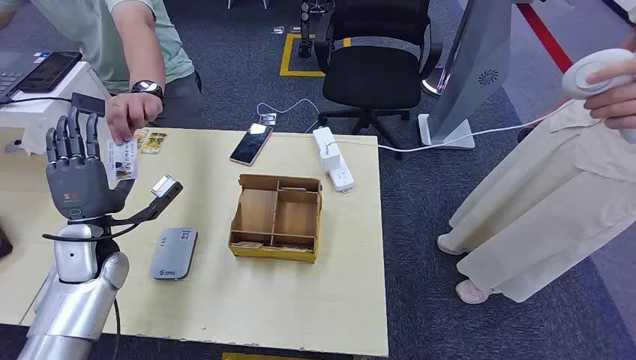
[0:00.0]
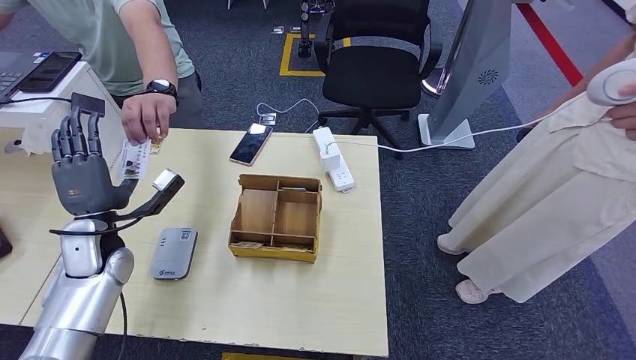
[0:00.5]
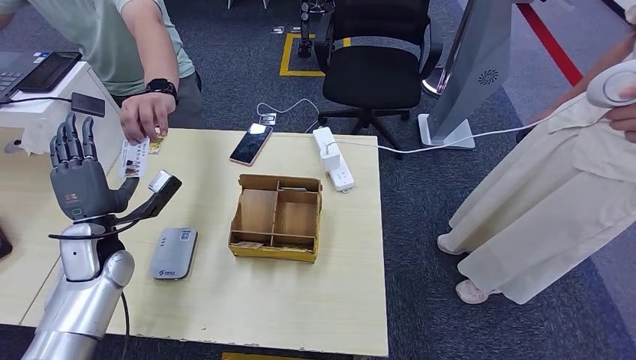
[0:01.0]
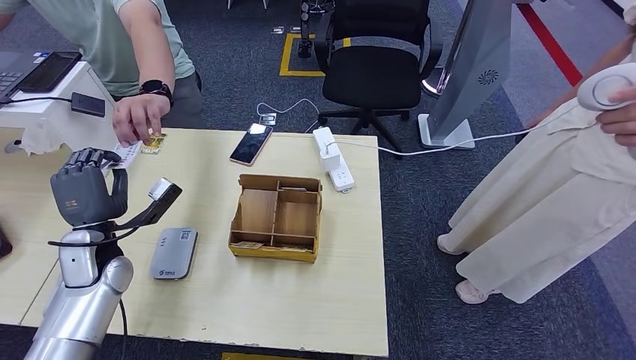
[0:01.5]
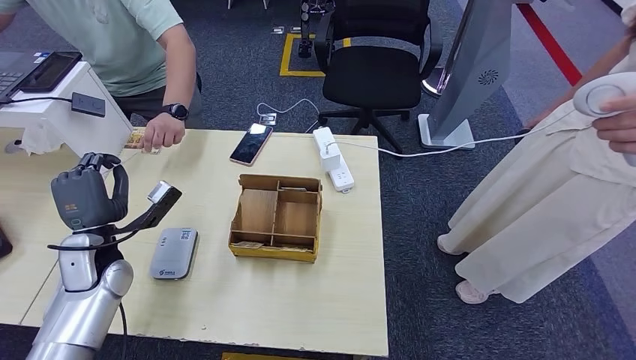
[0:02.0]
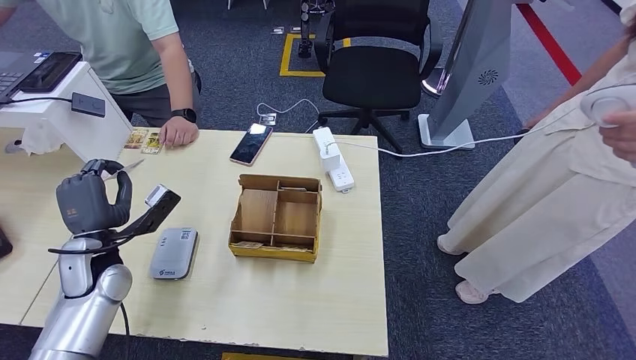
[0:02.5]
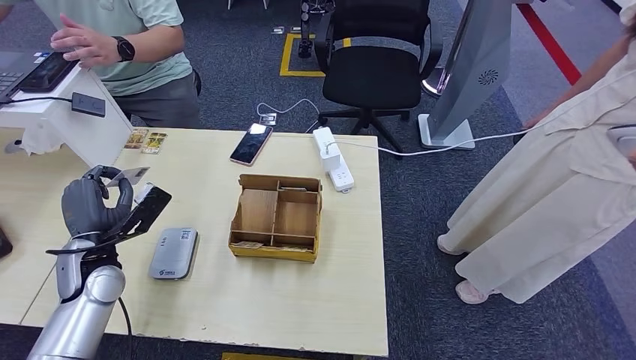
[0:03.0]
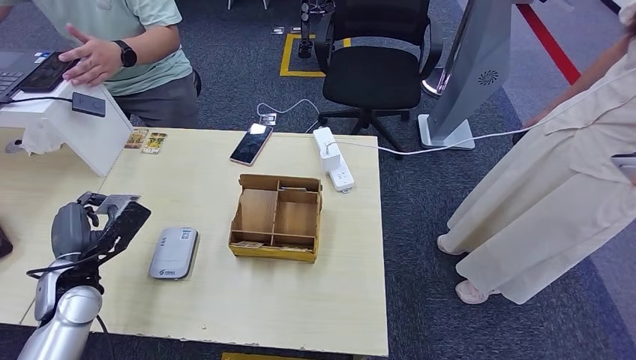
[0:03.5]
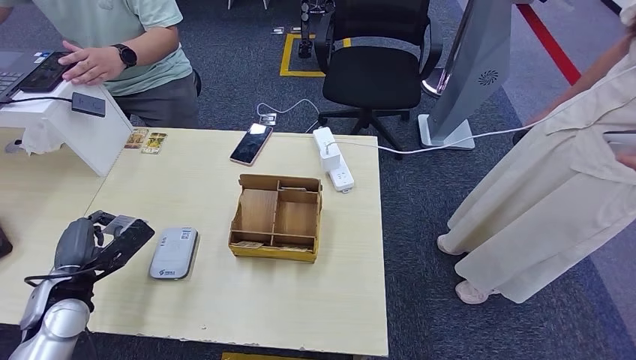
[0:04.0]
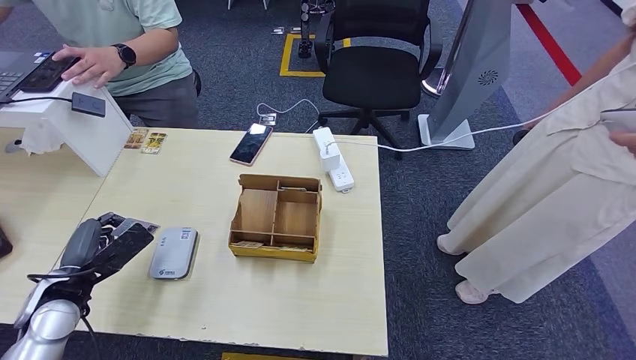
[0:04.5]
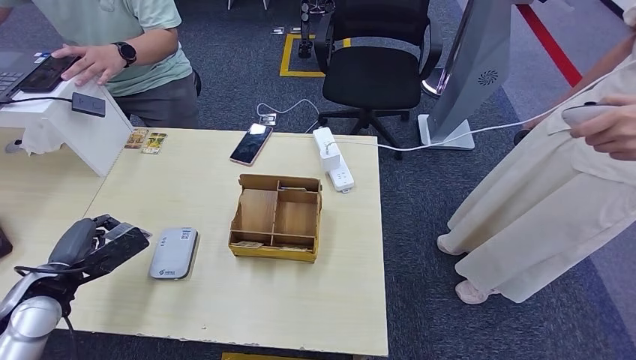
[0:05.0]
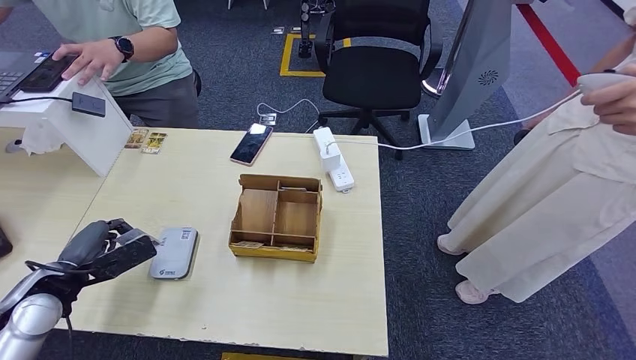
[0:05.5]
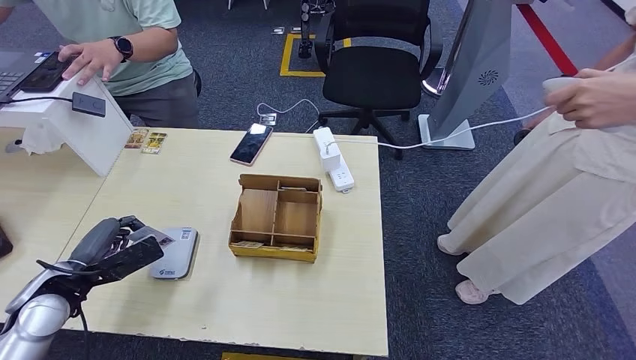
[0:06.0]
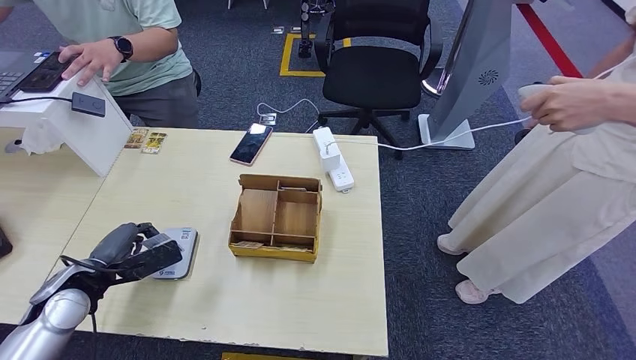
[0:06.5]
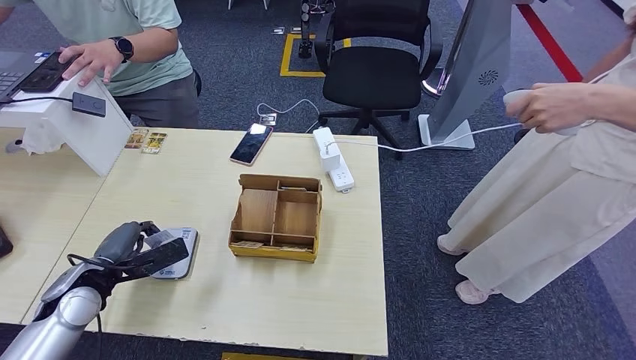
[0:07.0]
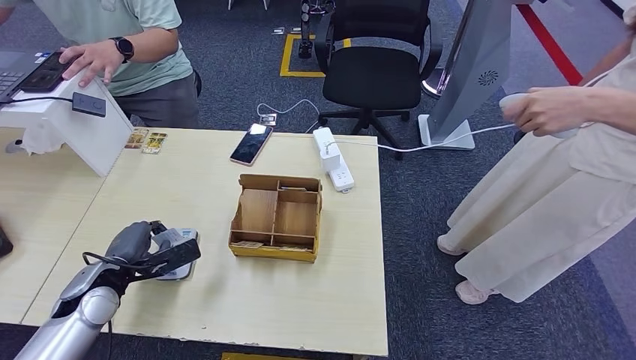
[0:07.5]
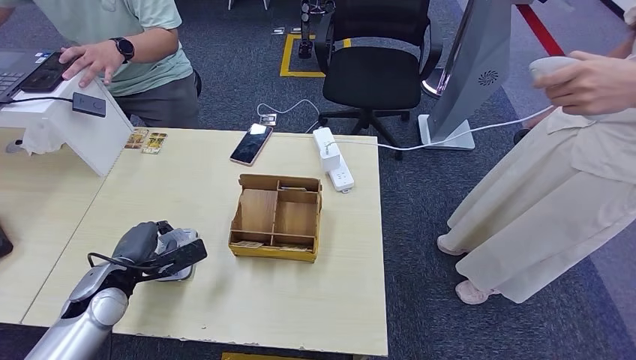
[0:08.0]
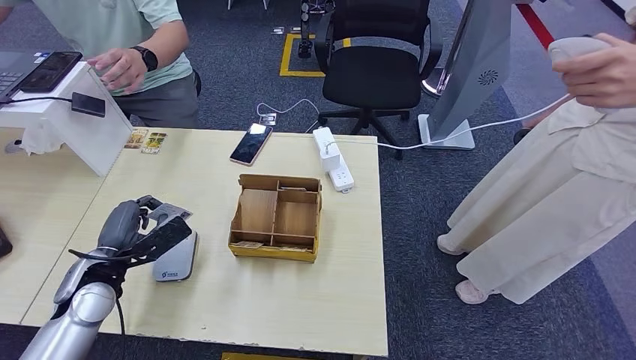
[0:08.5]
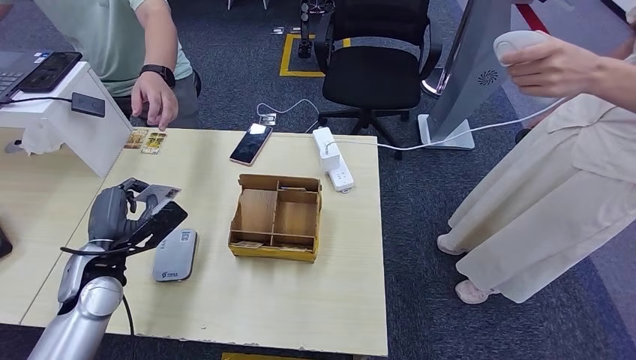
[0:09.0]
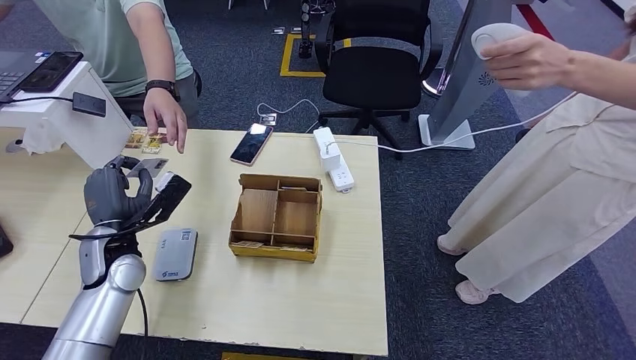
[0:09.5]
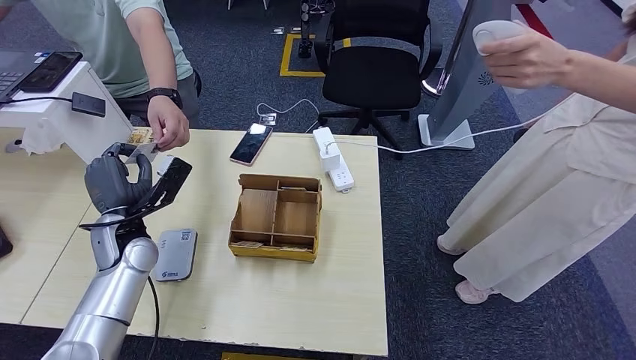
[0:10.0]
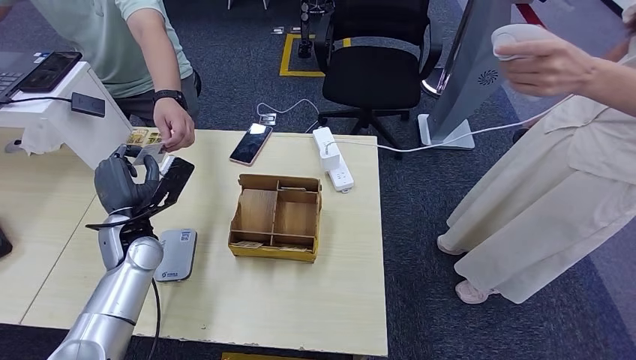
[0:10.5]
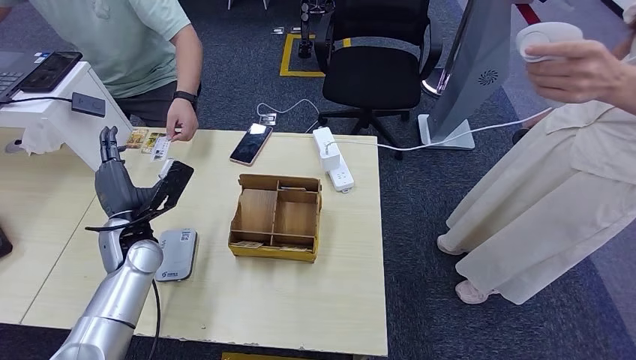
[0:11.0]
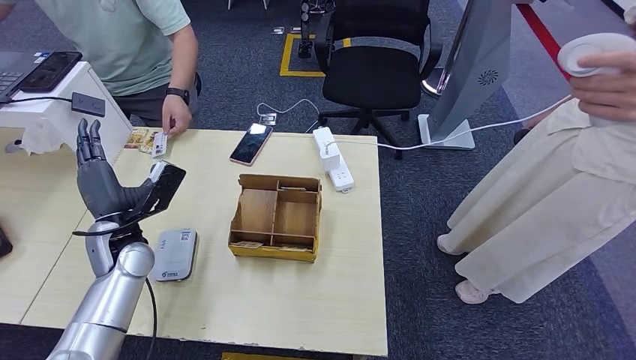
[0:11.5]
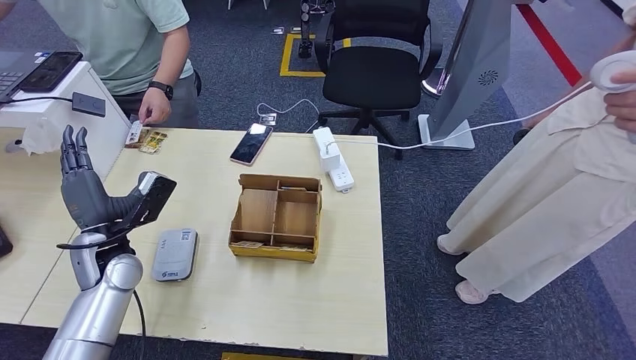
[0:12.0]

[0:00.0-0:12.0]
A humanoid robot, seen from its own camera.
Step, 0:00.0 to 0:01.0: Take the ID card from the person's hand.
Step, 0:01.5 to 0:05.5: Place the ID card on the card reader.
Step, 0:06.0 to 0:10.5: Hand the ID card to the person.
0:02.0 to 0:04.0: The left hand goes approximately 5 cm backward.
0:06.0 to 0:08.0: The left hand heads to the right, covering some 5 cm.
0:08.0 to 0:10.0: The left hand goes some 10 cm forward and upward.
0:10.0 to 0:12.0: The hands move only a little.

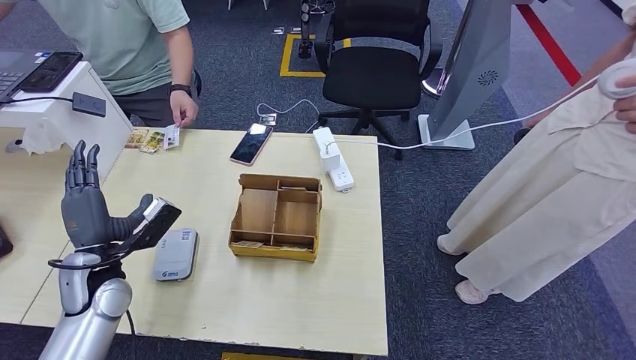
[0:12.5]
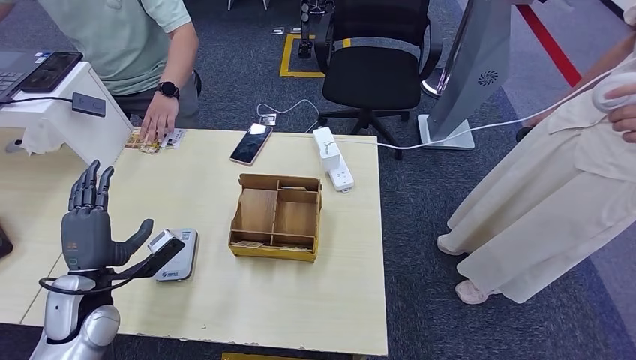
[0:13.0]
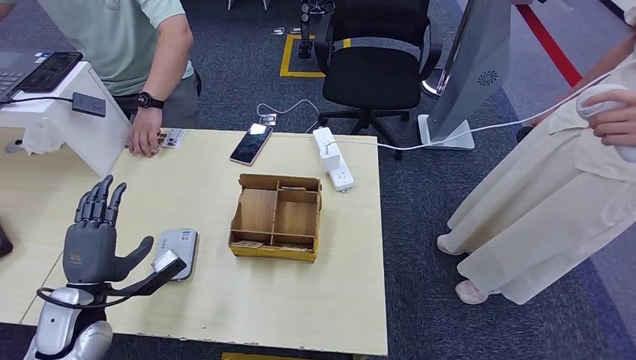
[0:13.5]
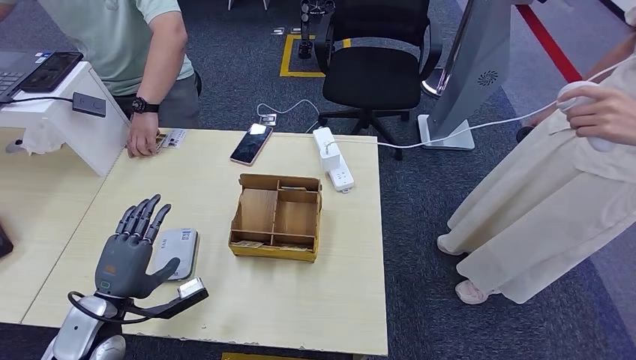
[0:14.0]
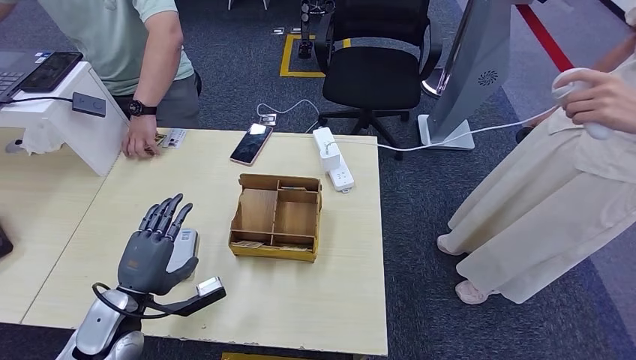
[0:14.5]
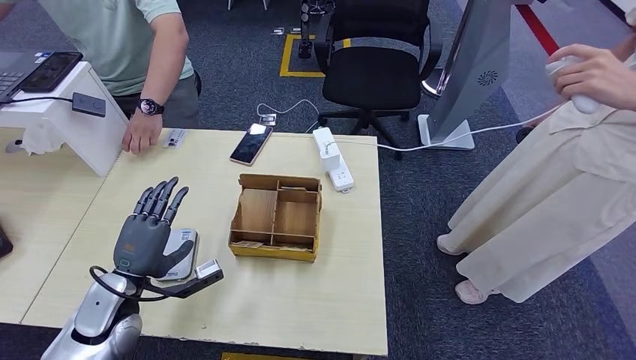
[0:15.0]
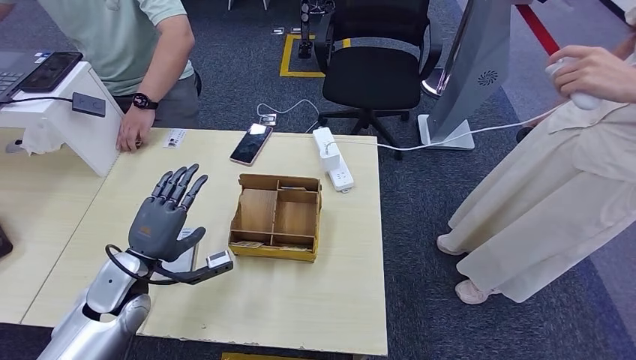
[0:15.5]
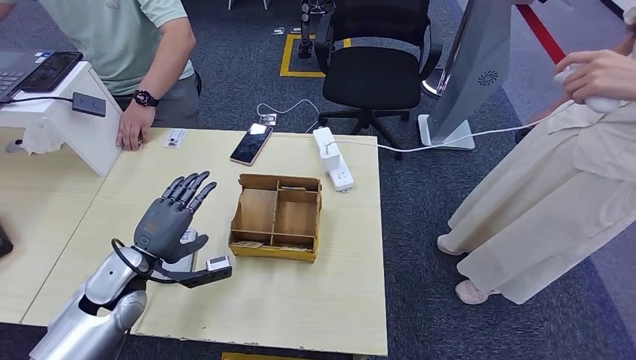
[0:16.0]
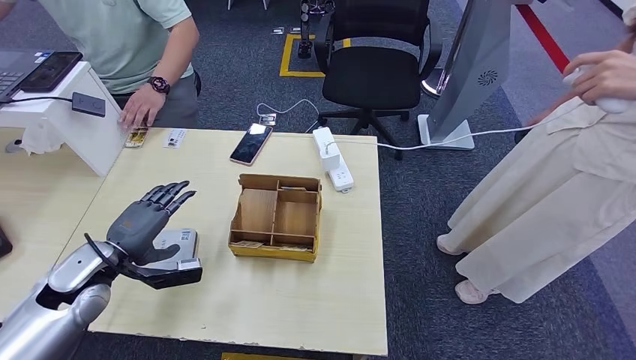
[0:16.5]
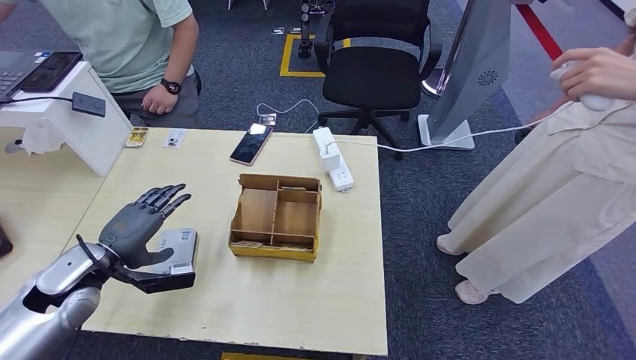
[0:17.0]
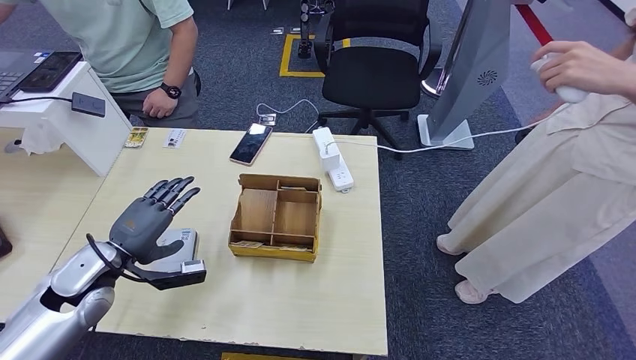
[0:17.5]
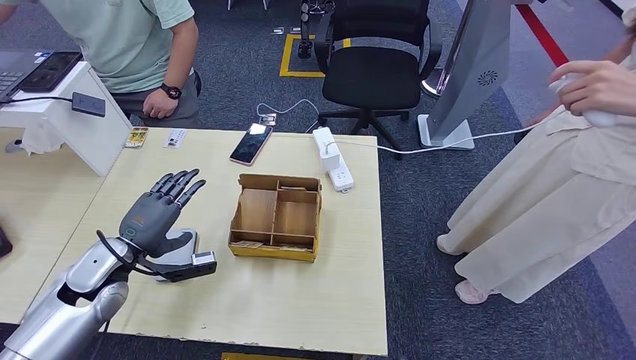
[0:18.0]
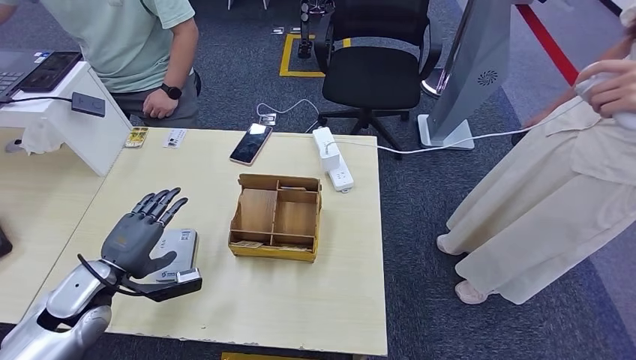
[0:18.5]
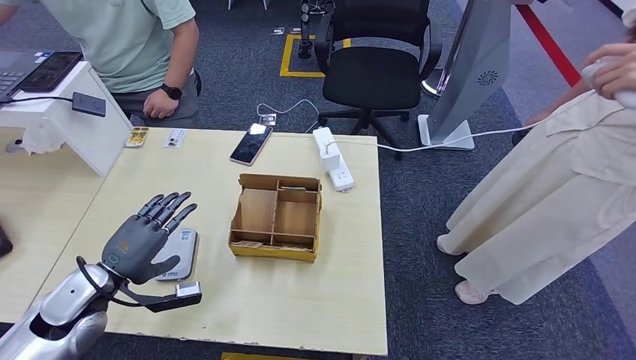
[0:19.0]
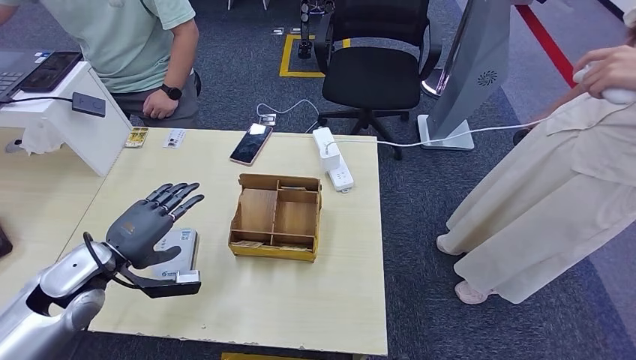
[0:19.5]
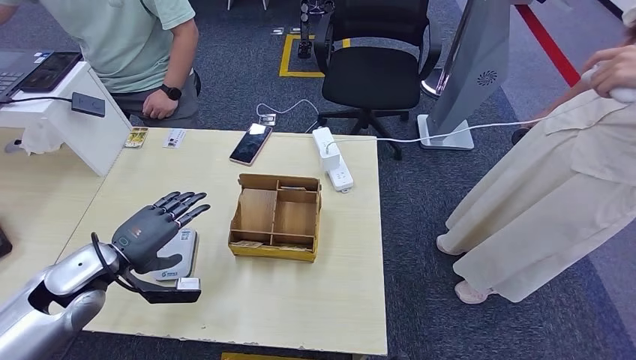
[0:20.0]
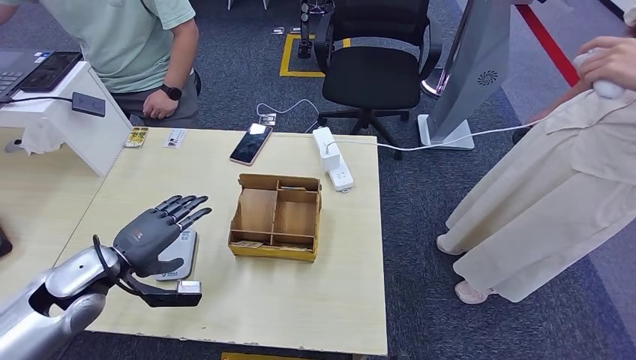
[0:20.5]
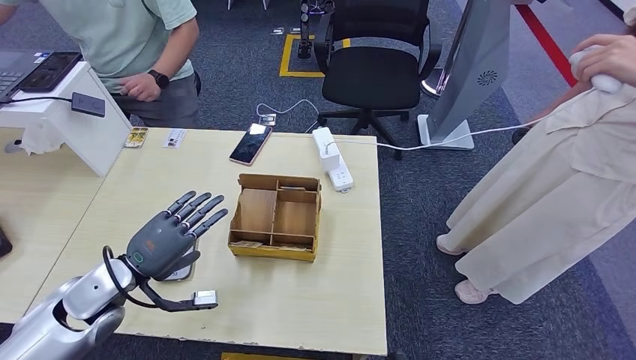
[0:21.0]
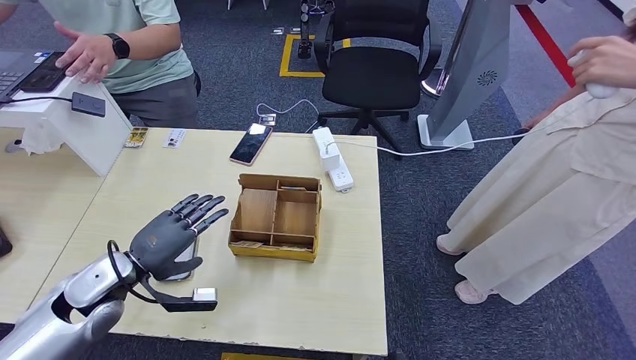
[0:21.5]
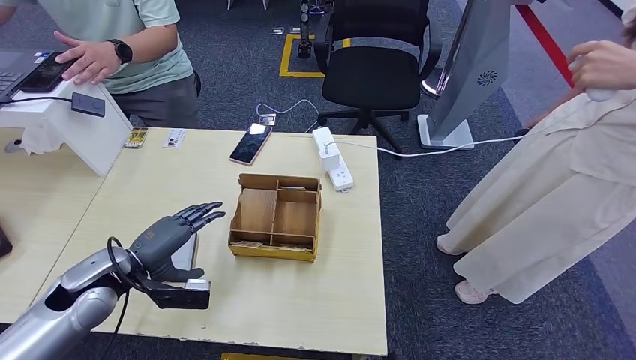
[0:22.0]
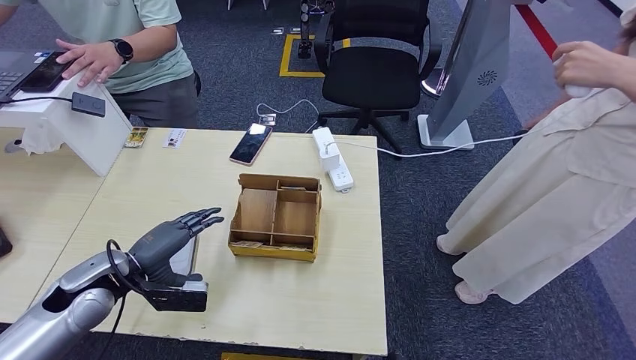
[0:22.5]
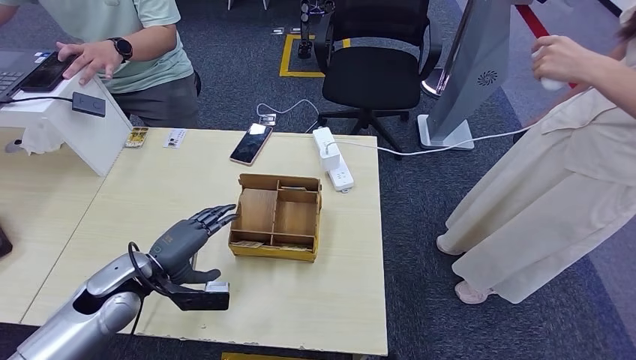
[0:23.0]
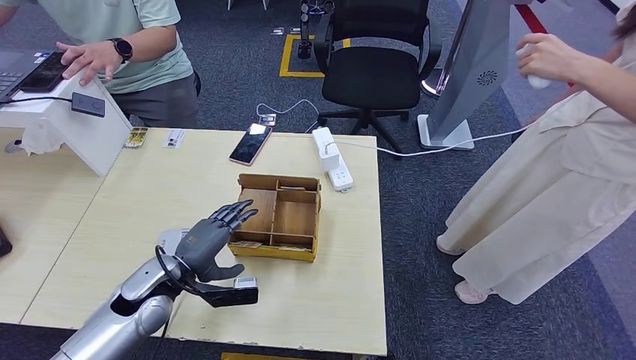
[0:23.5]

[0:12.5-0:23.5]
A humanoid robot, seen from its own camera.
0:12.5 to 0:14.5: The left hand heads backward, covering about 5 cm.
0:14.5 to 0:16.0: The left hand moves forward, roughly 5 cm.
0:18.0 to 0:20.0: There are only small adjustments of the hands.
0:21.5 to 0:23.5: The left hand goes about 5 cm to the right.
